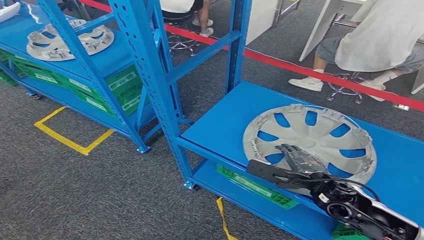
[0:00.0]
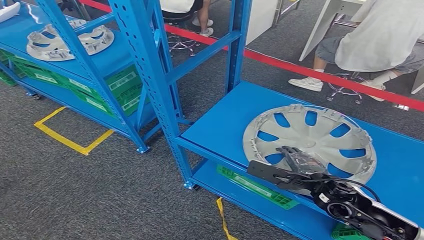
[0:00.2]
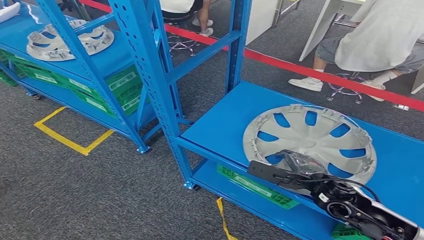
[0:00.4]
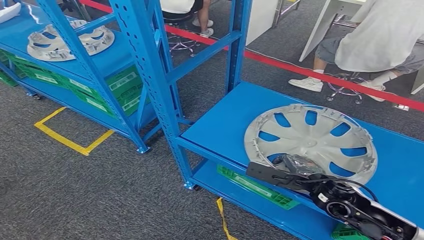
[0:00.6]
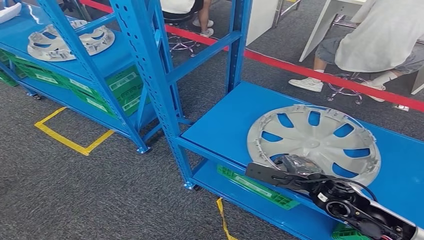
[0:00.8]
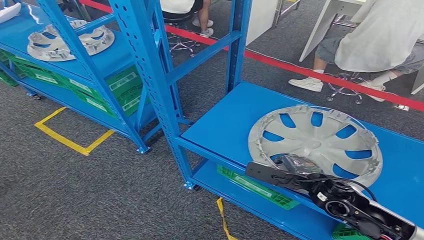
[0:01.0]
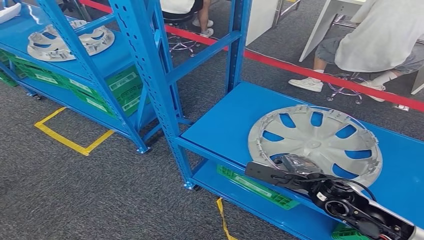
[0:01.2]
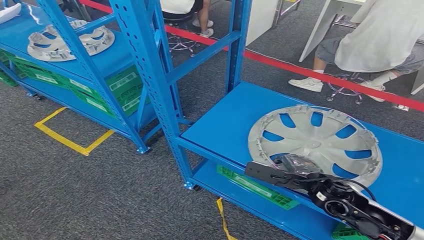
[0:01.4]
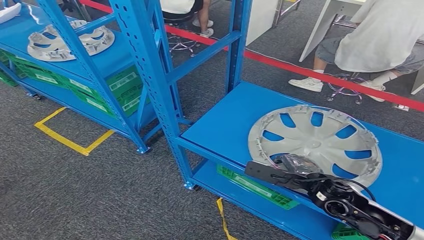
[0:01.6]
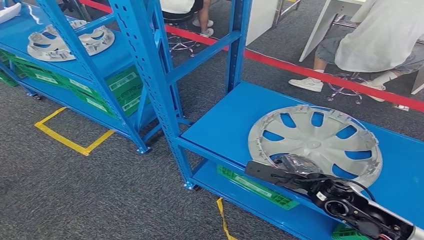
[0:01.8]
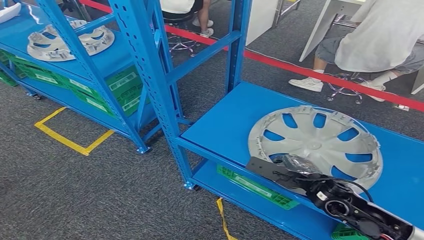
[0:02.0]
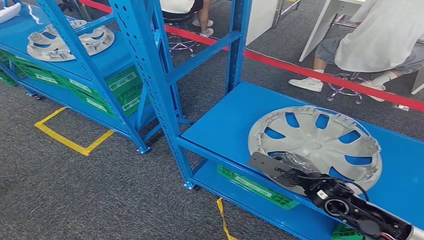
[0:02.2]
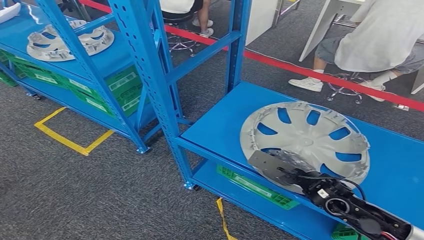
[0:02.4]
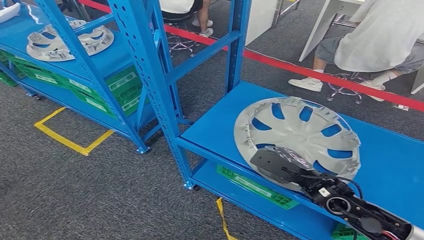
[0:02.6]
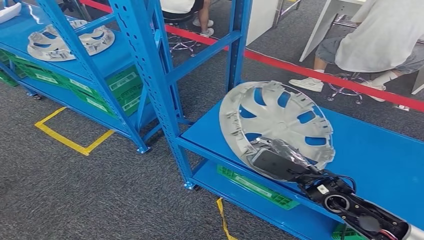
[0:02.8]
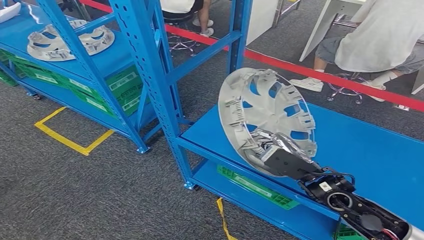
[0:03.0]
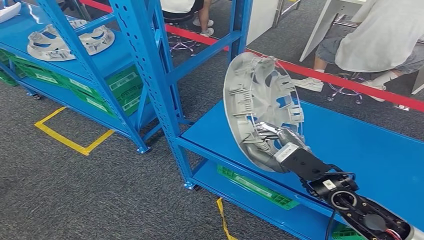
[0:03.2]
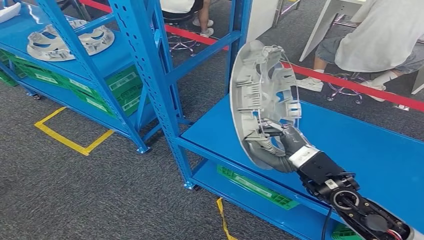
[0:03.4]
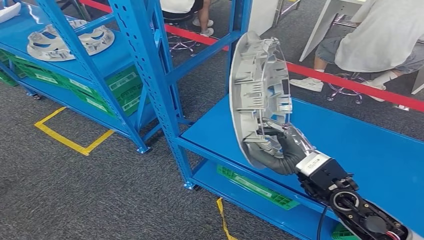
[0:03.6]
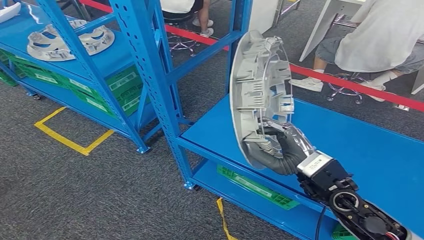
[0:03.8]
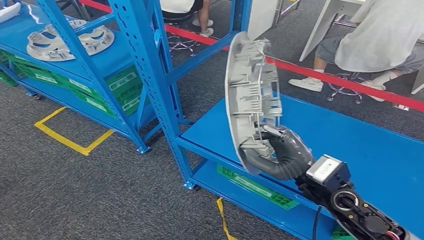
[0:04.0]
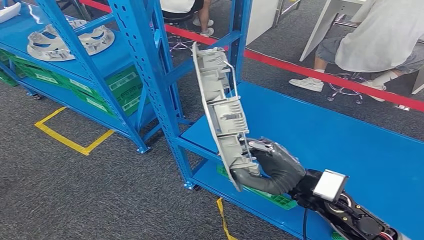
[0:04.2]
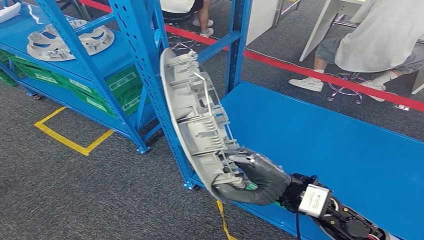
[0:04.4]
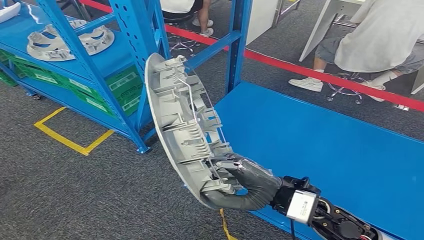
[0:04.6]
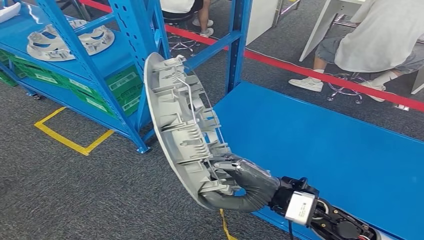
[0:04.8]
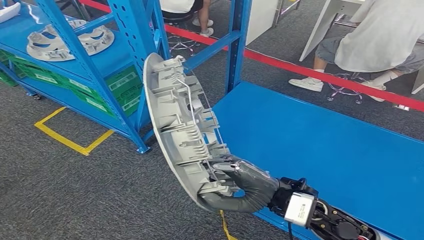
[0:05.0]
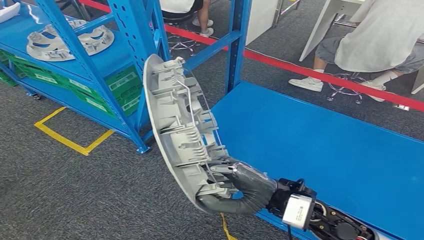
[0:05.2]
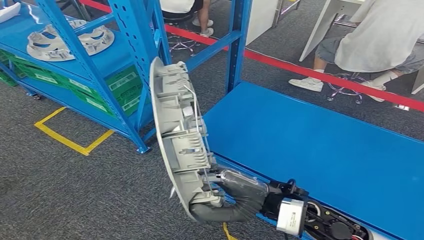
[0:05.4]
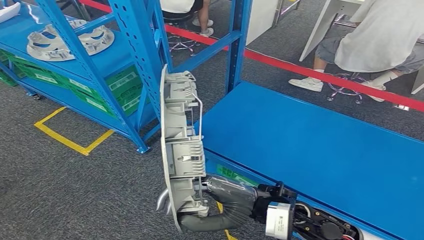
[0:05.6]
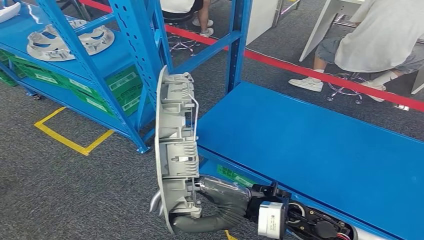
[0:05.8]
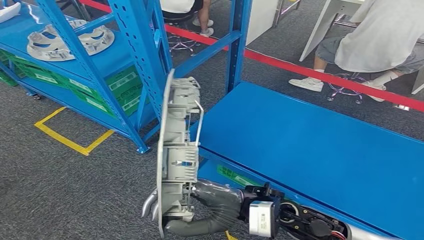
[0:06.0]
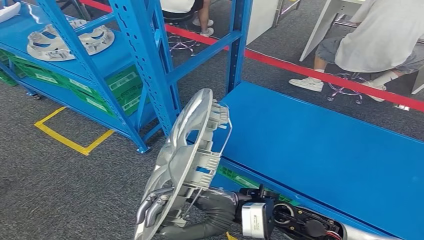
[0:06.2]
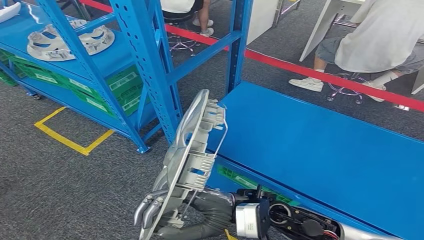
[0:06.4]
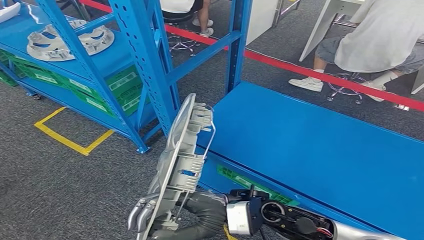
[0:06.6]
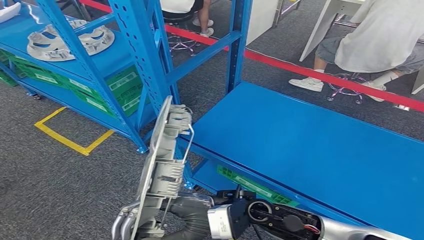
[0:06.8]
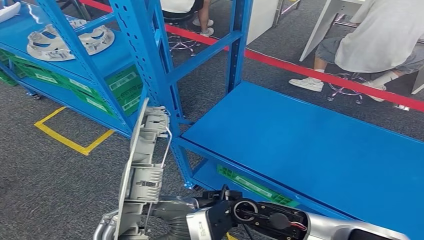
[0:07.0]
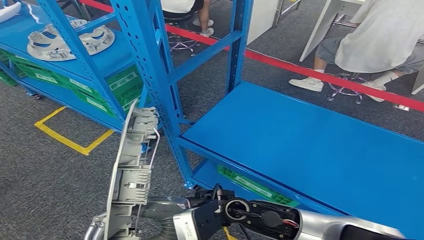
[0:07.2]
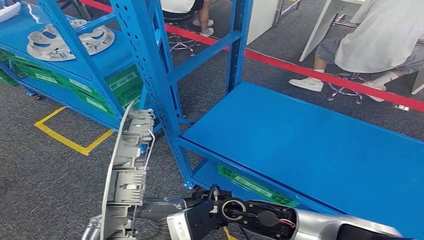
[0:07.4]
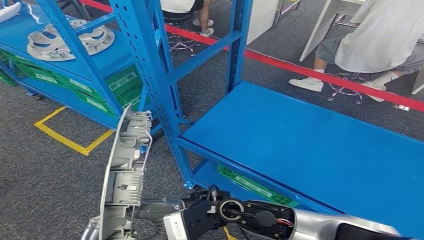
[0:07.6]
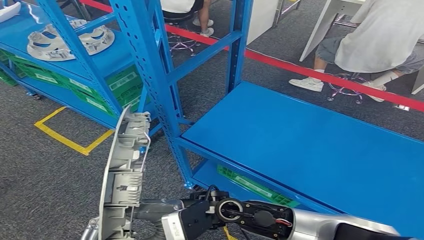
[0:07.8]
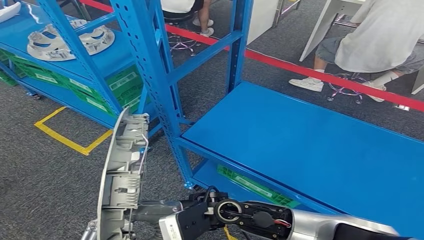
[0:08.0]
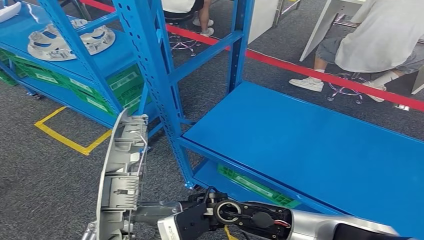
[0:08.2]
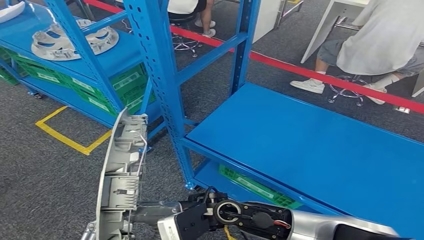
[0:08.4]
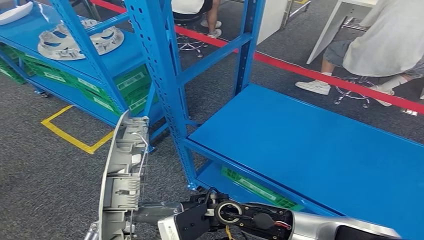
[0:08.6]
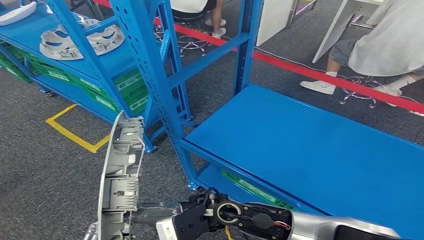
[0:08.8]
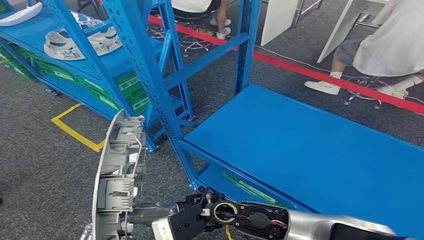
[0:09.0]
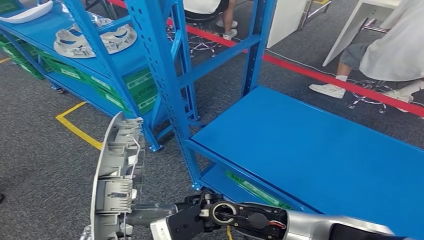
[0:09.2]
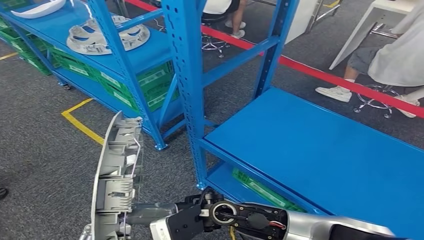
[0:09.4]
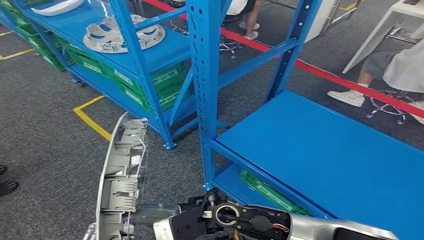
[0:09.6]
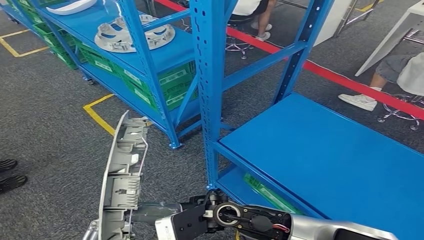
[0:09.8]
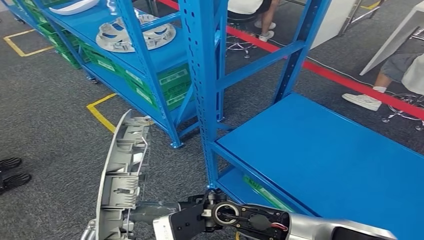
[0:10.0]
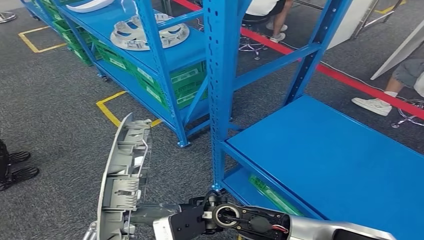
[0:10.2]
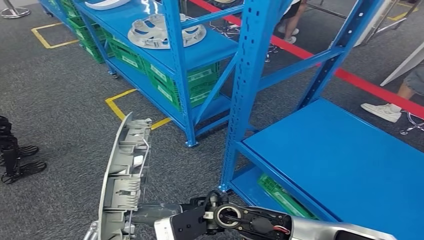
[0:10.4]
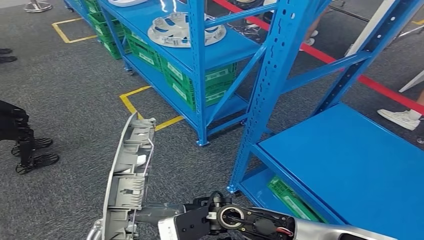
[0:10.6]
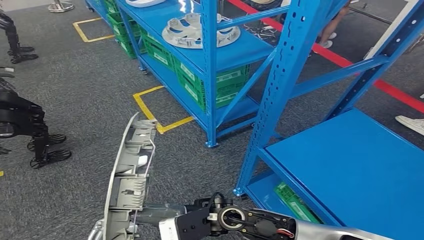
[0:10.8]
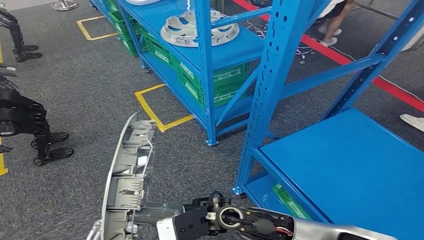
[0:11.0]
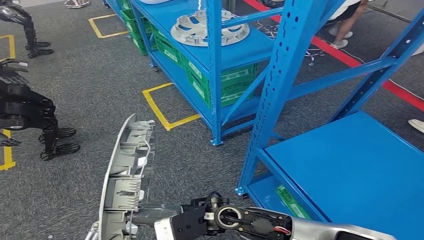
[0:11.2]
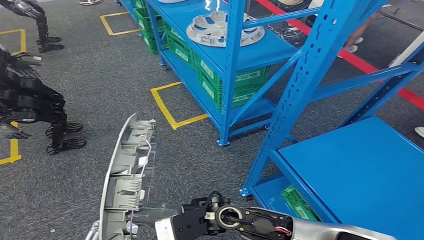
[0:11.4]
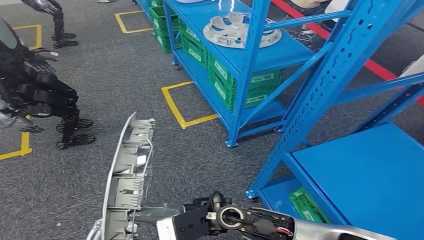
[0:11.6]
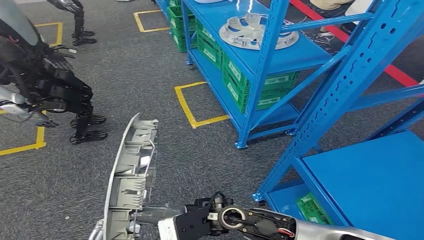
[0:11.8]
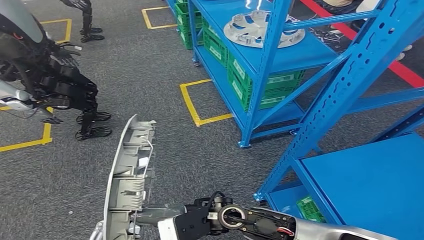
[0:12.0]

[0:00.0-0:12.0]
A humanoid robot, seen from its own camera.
0:00.0 to 0:01.6: The hands make only small movements.
0:03.0 to 0:04.4: The right hand shifts about 5 cm to the left.
0:04.4 to 0:06.0: The right hand travels to the left by approximately 10 cm.
0:06.0 to 0:07.6: The right hand is displaced to the left by about 10 cm.

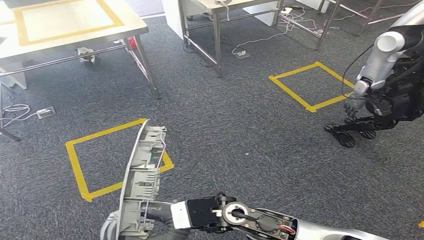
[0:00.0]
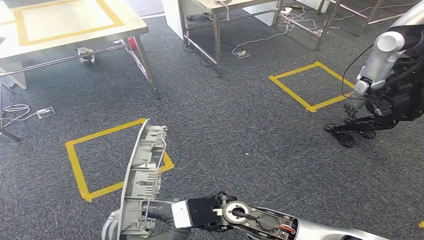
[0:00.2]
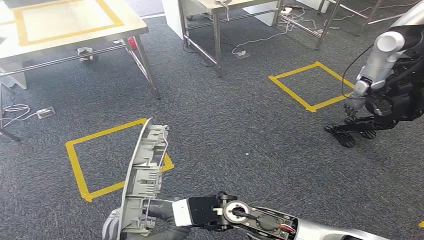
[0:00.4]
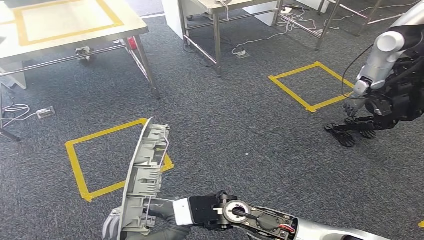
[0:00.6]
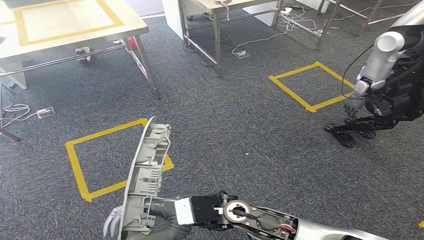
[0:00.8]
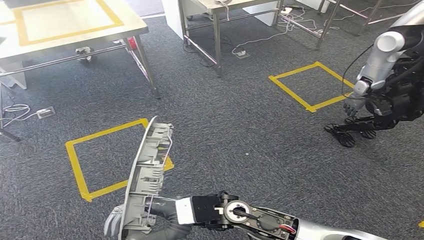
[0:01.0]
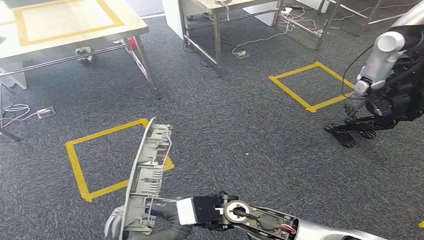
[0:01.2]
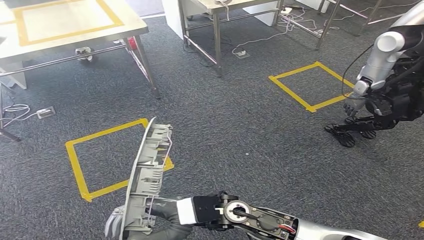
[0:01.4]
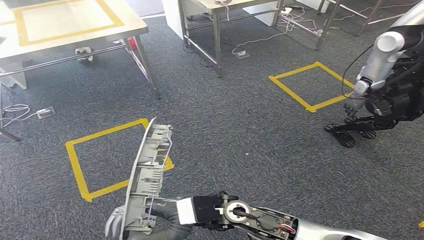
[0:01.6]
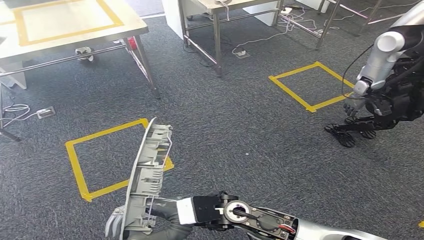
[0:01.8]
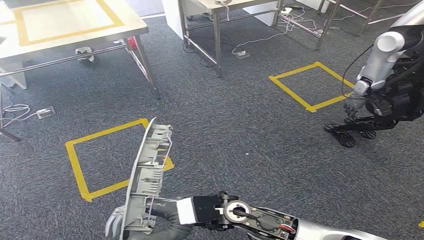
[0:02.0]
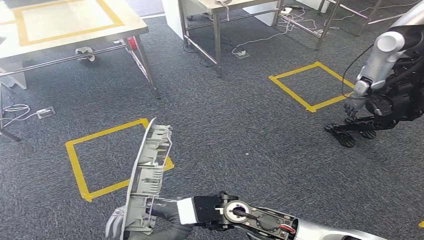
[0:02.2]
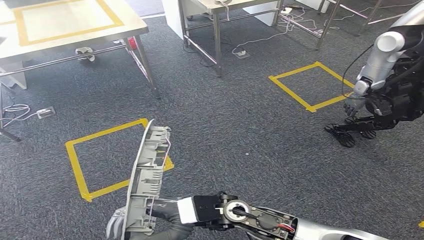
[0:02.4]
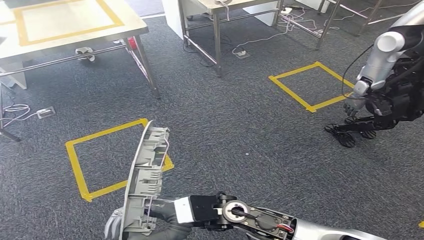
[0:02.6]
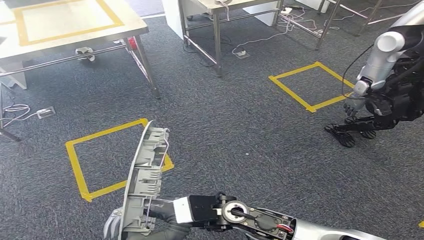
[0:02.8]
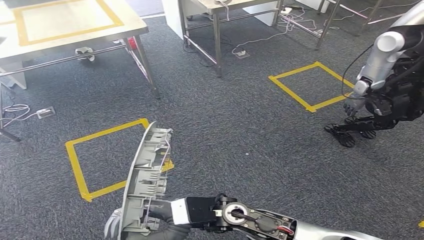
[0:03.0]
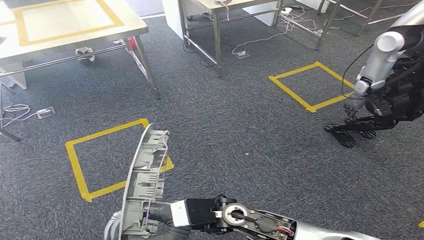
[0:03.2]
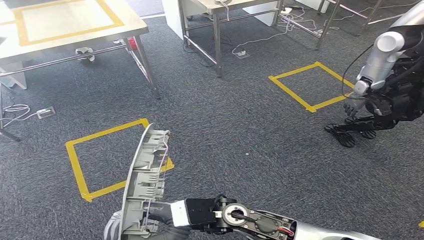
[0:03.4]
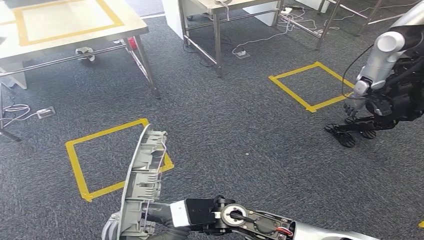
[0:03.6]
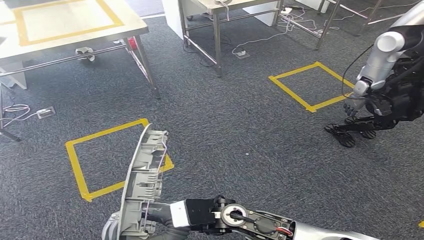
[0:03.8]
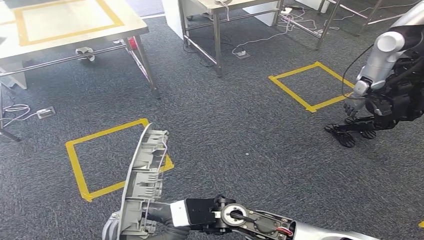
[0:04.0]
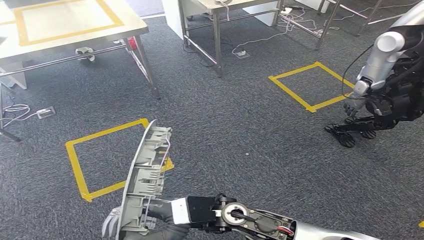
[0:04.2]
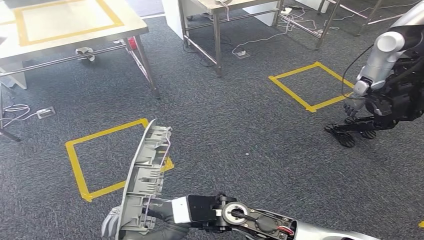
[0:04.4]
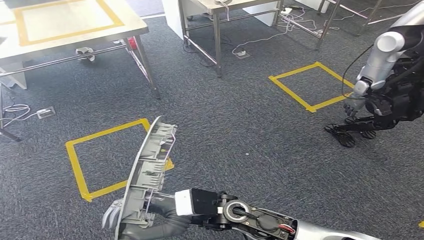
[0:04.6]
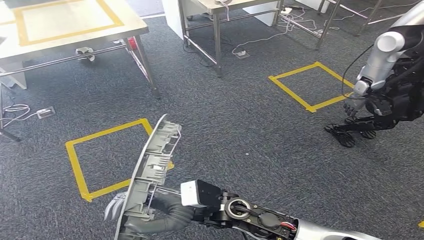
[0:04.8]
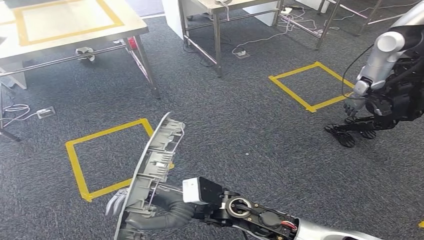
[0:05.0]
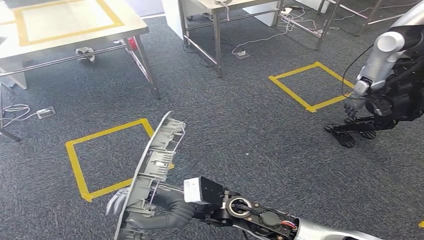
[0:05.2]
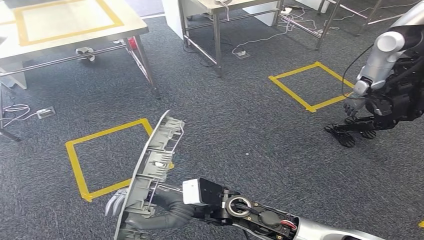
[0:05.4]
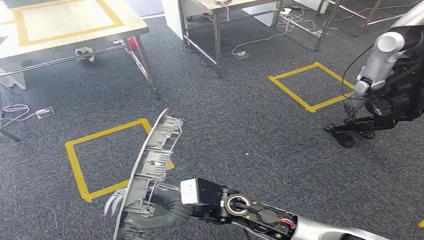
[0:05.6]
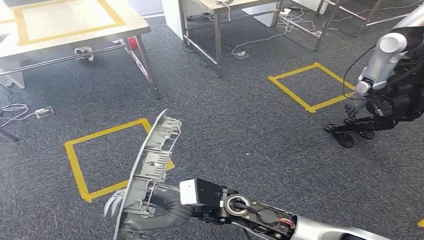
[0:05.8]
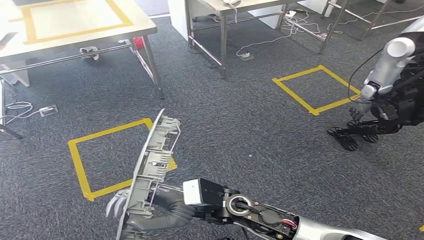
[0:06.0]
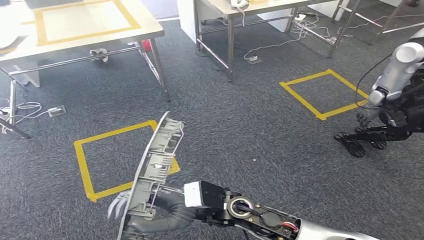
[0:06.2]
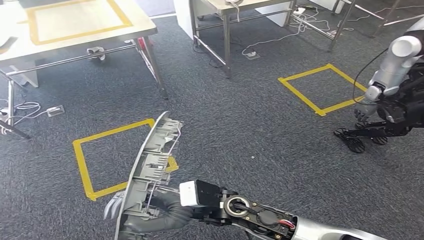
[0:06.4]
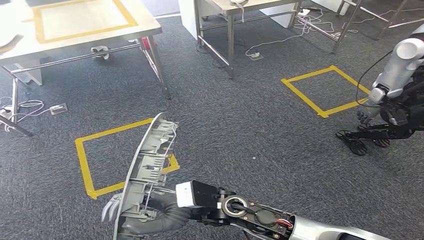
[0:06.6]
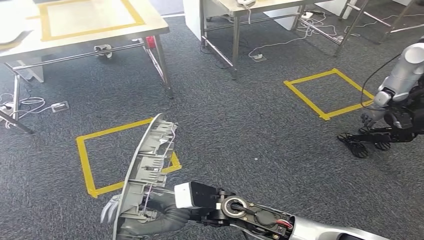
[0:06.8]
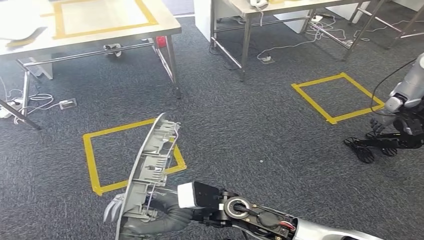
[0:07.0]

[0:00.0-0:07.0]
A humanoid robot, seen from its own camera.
0:00.0 to 0:01.4: The hands make only small movements.
0:01.4 to 0:02.8: Both hands stay put.
0:02.8 to 0:04.2: Both hands stay about where they are.
0:04.2 to 0:05.6: The hands make only small movements.
